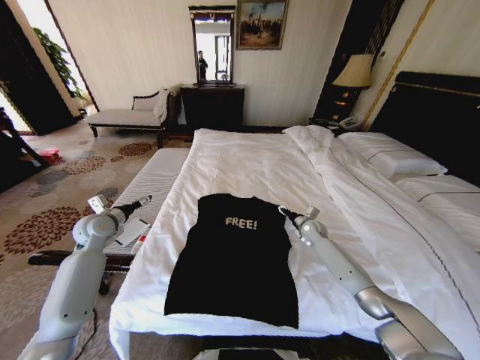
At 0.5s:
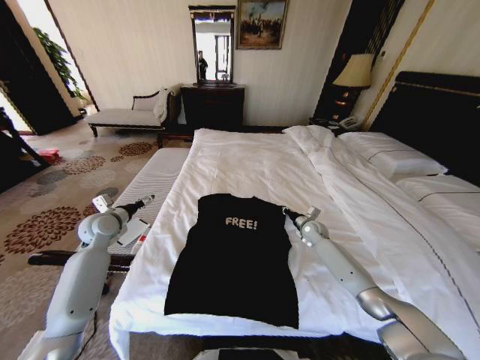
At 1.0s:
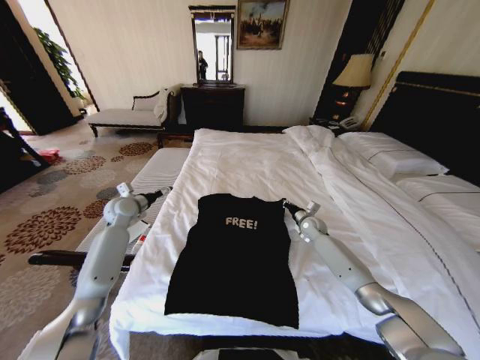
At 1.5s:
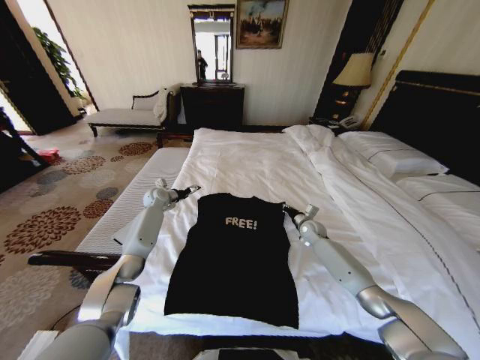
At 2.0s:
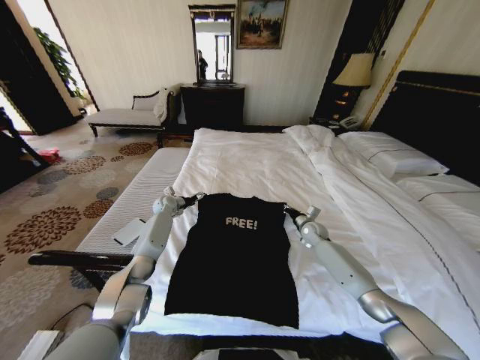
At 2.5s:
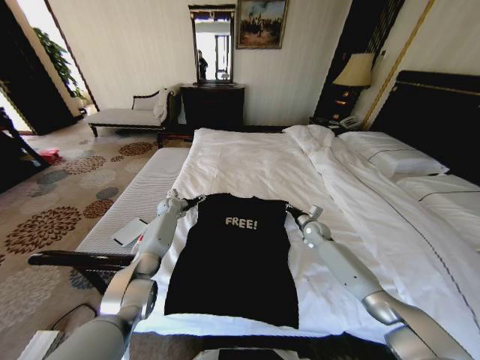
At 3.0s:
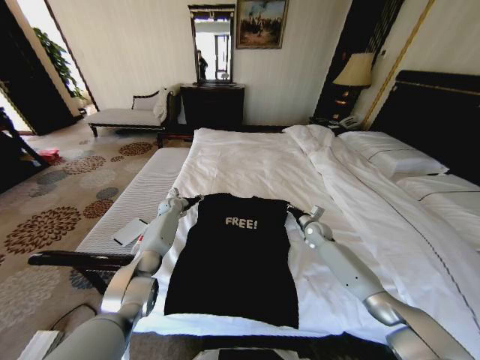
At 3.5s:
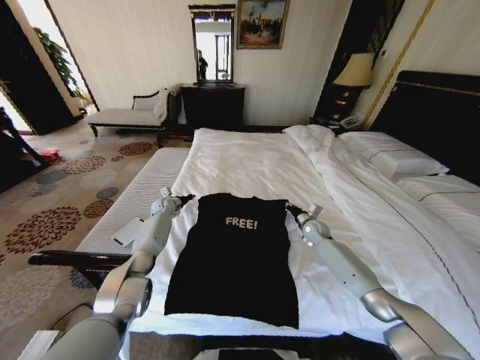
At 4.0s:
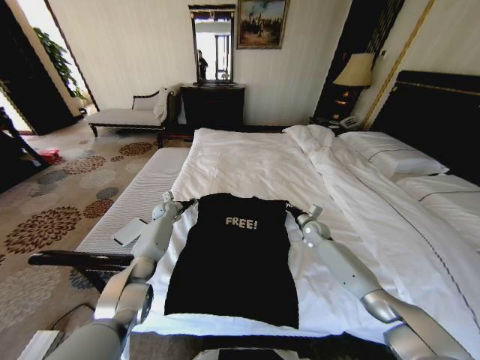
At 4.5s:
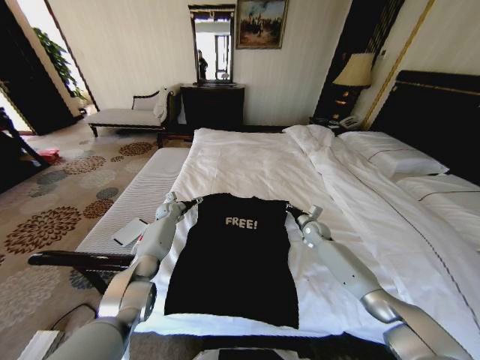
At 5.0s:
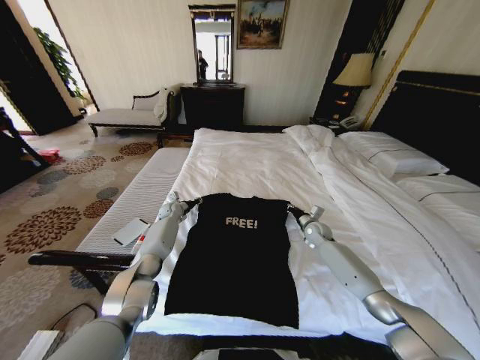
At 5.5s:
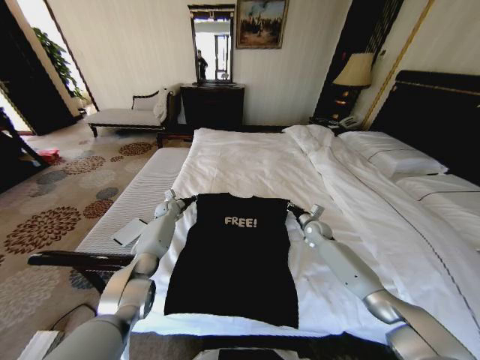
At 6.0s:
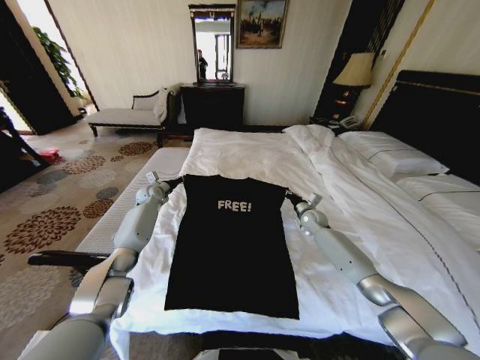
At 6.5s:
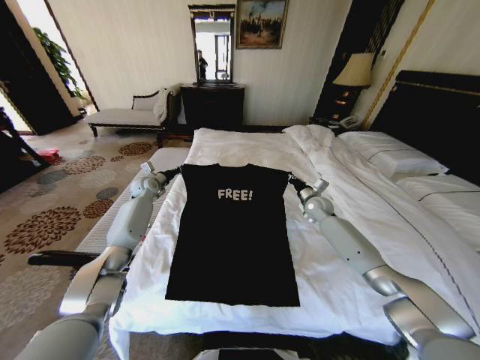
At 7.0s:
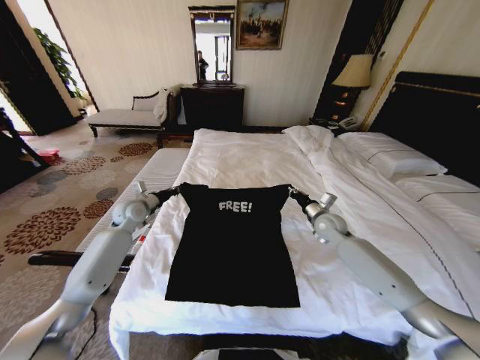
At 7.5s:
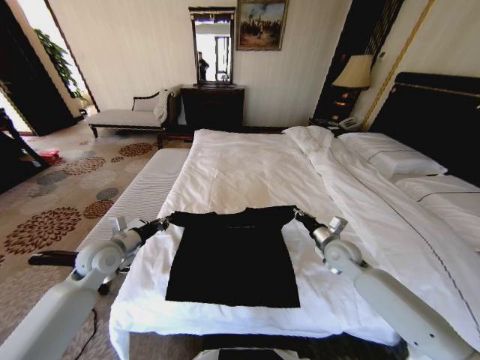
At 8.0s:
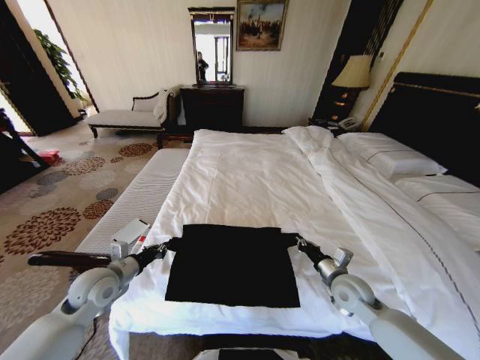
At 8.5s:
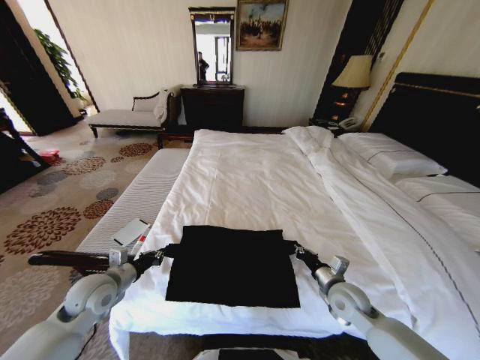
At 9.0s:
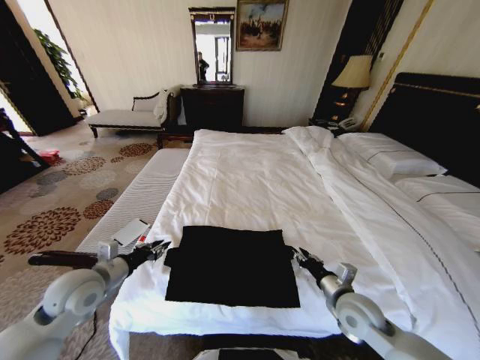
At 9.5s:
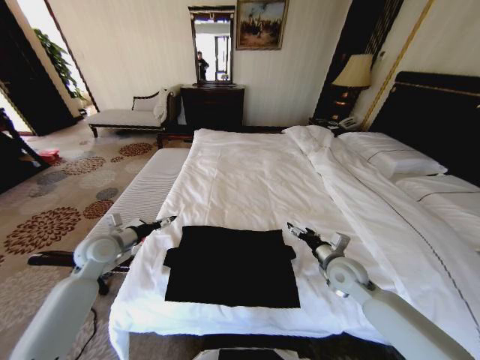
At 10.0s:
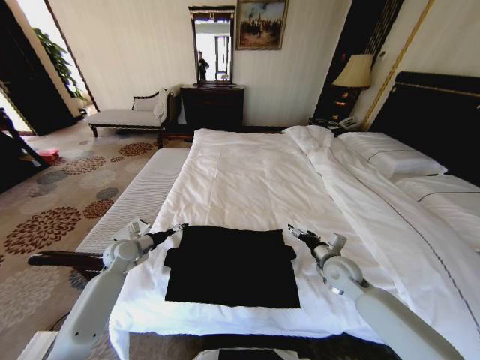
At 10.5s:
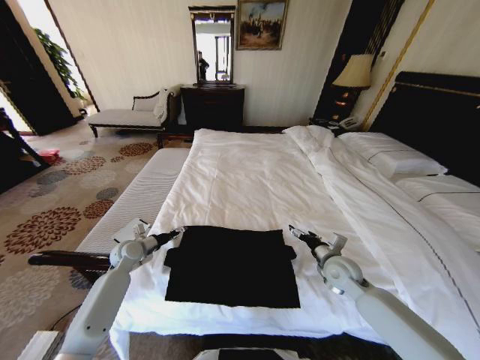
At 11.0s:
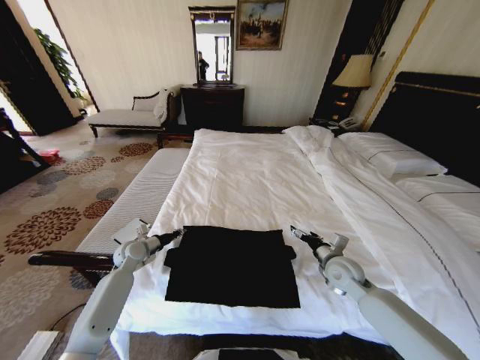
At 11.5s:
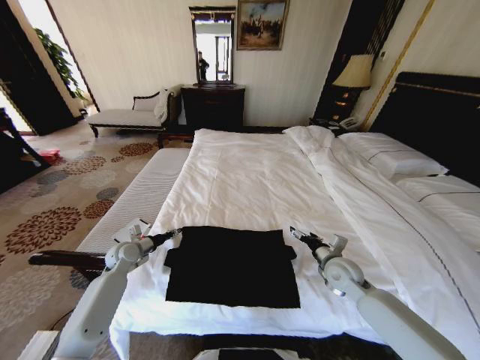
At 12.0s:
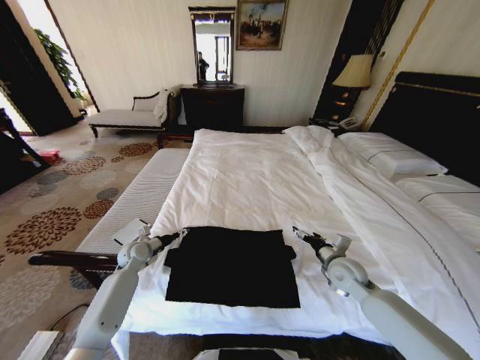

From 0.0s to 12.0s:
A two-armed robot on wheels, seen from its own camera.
Task of the whole recording: Fold the clothes on the bed.
From 0.0s to 2.0s: The left gripper is displaced forward, to the right and downward by about 25 cm. Meanwhile the right gripper closes its fingers.
From 2.0s to 4.0s: The left gripper closes up.
From 4.0s to 6.0s: The left gripper is displaced upward by approximately 10 cm, and opens, then closes again.
From 6.0s to 8.0s: Both grippers move backward, about 30 cm.
From 8.0s to 10.0s: The right gripper moves forward, roughly 5 cm, and opens its fingers. Meanwhile the left gripper goes roughly 15 cm forward and downward, and opens its fingers.
From 10.0s to 12.0s: The left gripper ends up some 5 cm from where it was, and closes and opens again.

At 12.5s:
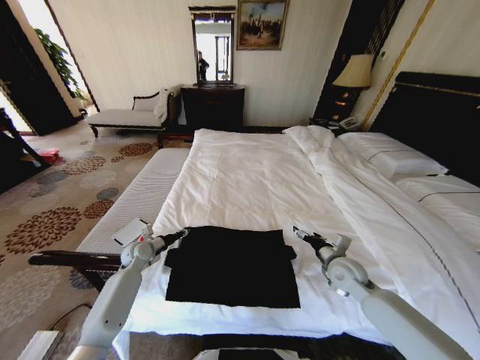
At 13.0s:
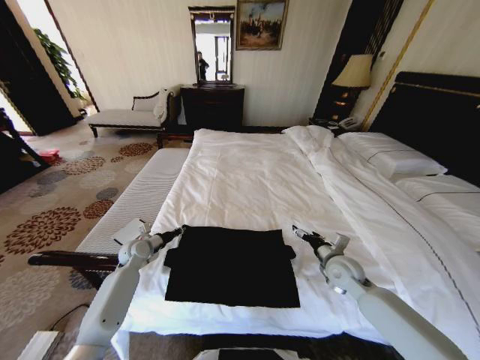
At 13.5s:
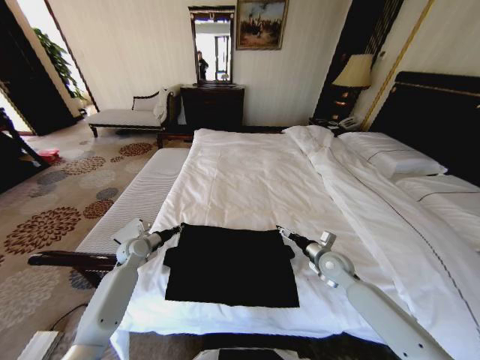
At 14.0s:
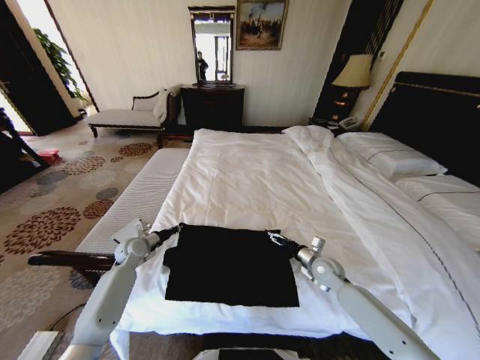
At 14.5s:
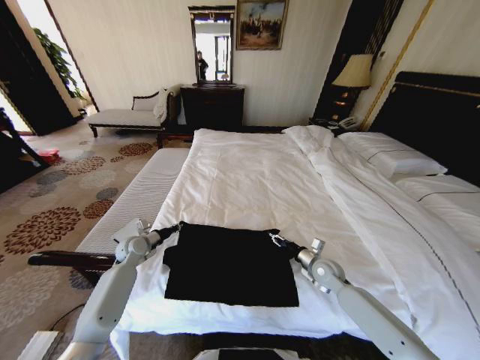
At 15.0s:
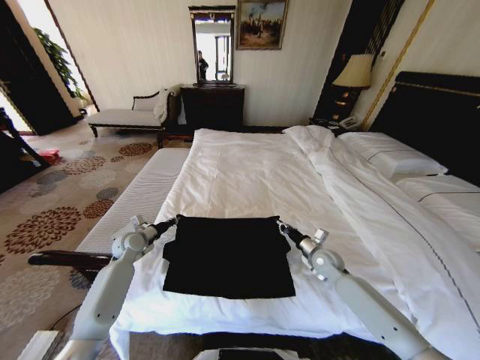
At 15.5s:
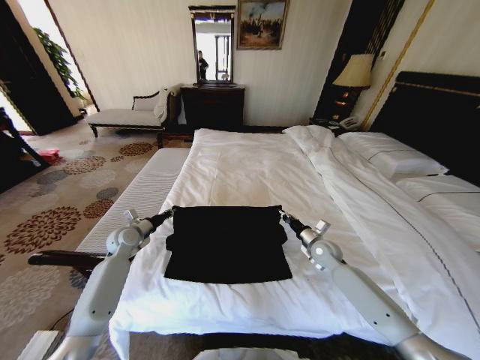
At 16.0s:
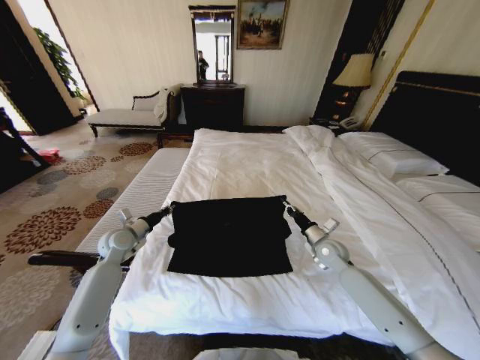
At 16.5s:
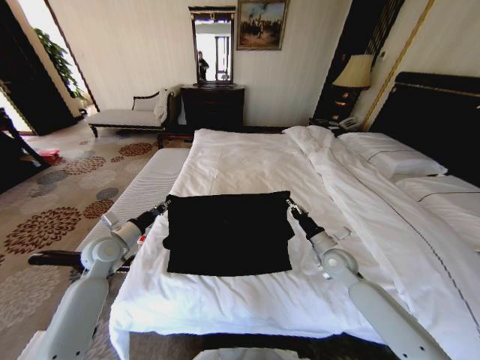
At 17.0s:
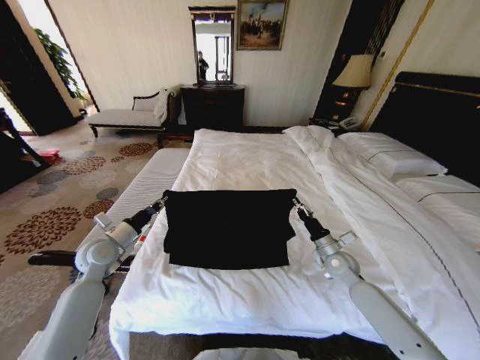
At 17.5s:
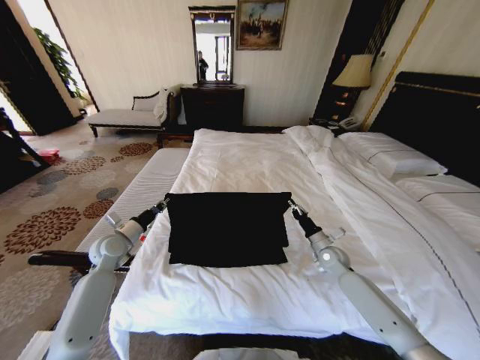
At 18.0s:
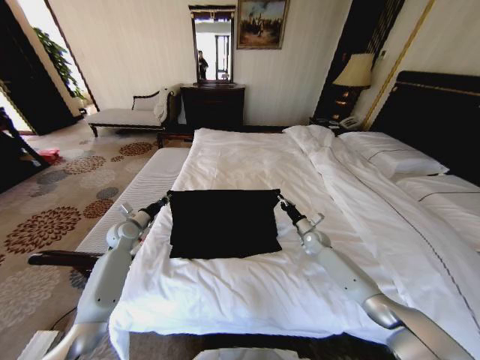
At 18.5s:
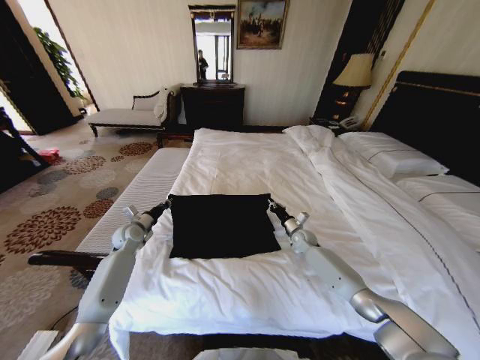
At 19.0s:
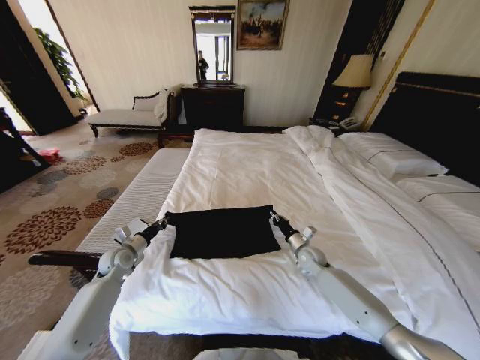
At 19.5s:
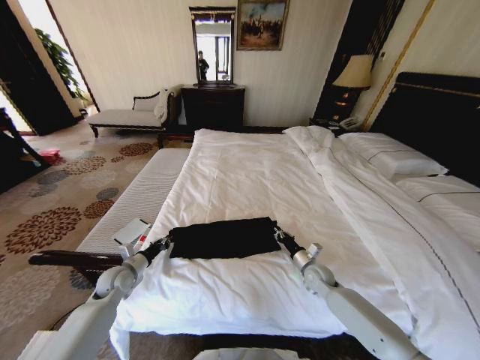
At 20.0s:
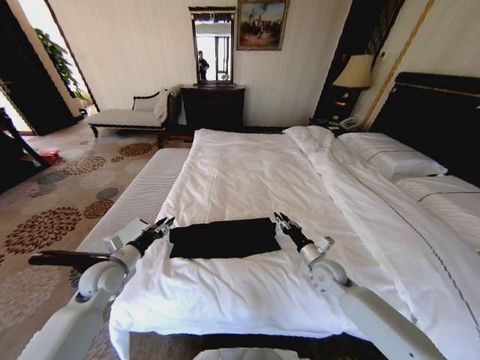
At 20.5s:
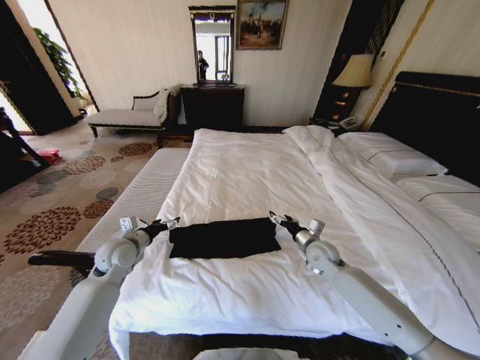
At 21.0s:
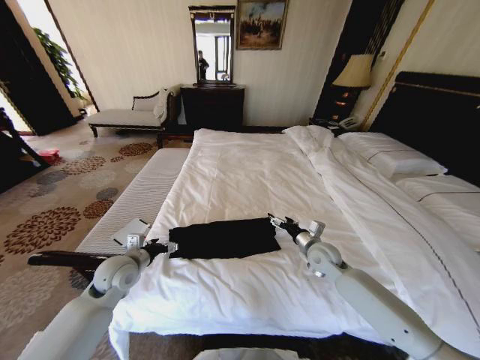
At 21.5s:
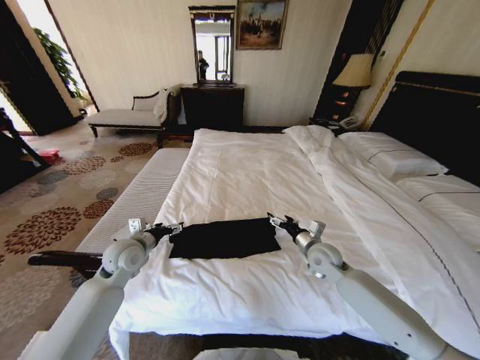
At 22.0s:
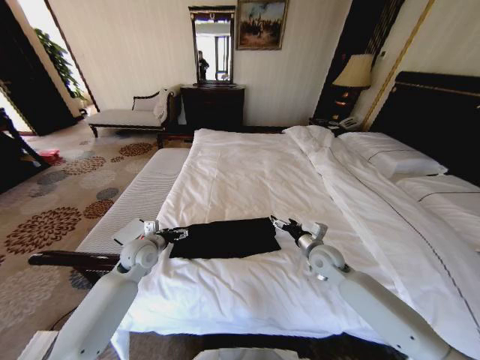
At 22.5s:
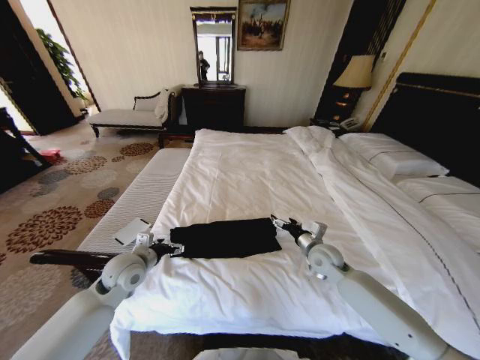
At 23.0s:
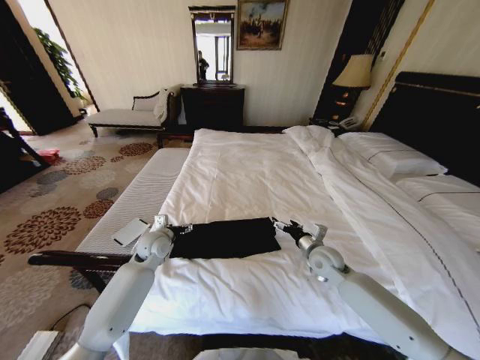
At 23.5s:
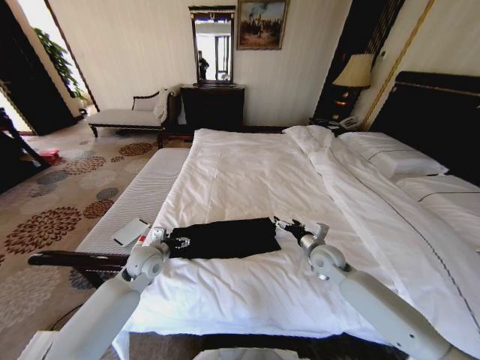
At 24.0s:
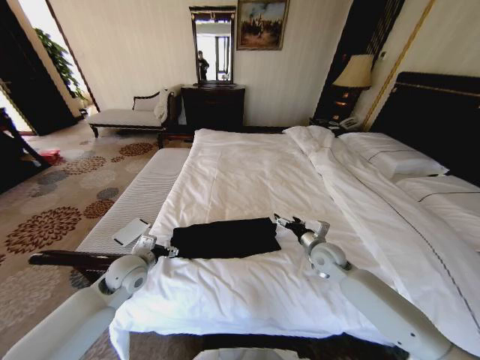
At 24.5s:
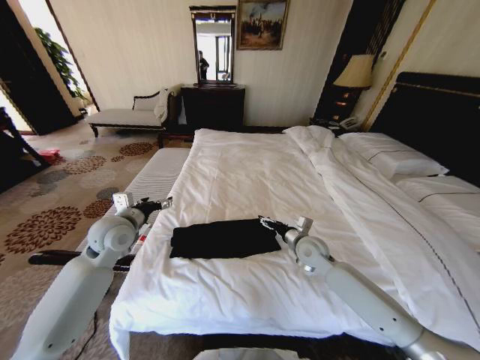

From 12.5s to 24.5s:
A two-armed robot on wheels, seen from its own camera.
Task of the whole recording: Fold the clothes on the bed.
From 12.5s to 14.5s: The right gripper heads downward, covering about 5 cm, and closes its fingers, while the left gripper closes.
From 14.5s to 16.5s: The right gripper moves upward, approximately 5 cm, and closes its fingers. The left gripper goes roughly 10 cm upward and backward.
From 16.5s to 18.5s: Both grippers move forward and downward, some 15 cm.
From 18.5s to 20.5s: Both grippers move backward and upward, about 15 cm. The right gripper opens up, while the left gripper opens its fingers.
From 20.5s to 22.5s: The left gripper moves forward and backward over some 5 cm, changing direction 2 times.
From 22.5s to 24.5s: The left gripper goes roughly 10 cm upward and forward.

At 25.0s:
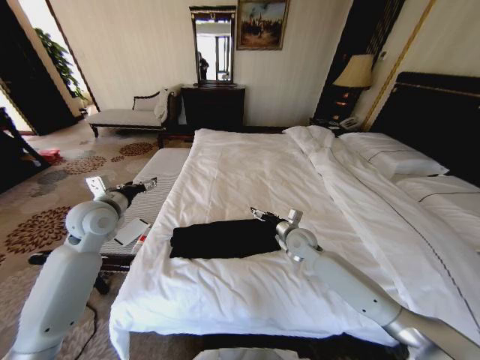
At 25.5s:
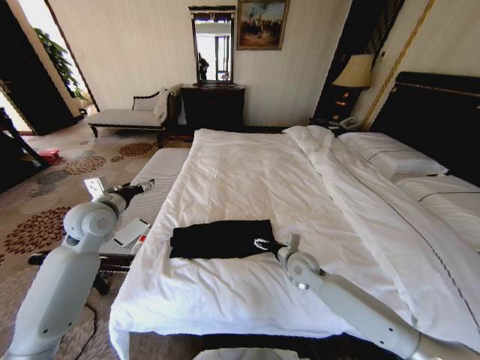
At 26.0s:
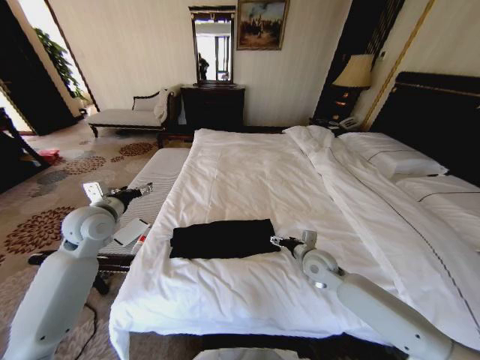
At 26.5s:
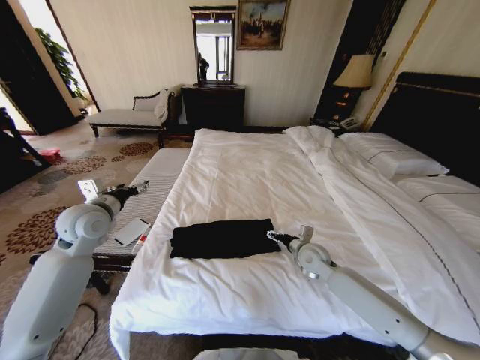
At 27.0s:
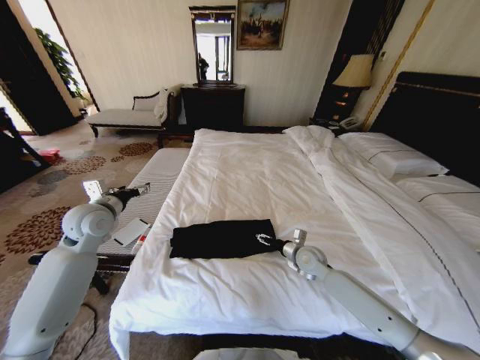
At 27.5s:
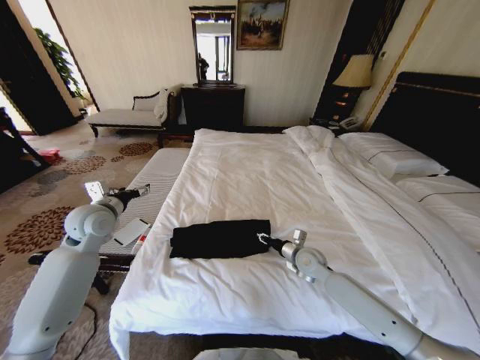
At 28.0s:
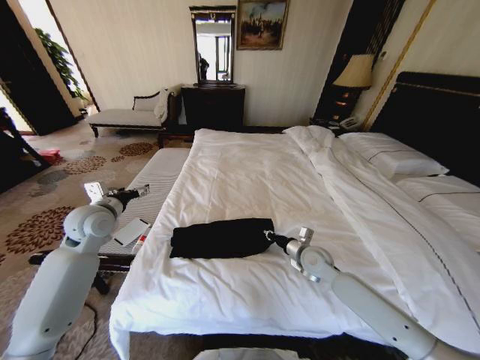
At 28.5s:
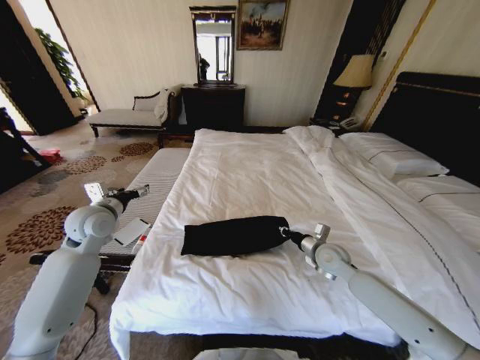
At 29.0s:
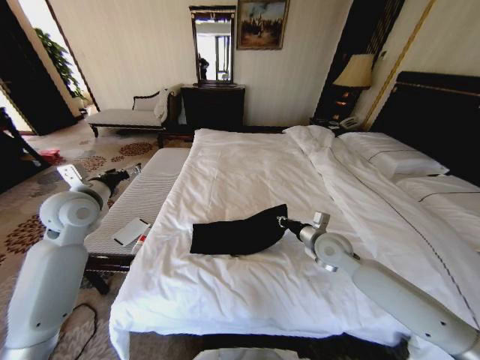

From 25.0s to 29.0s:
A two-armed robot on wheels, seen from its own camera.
Task of the whole recording: Fold the clothes on the bed.
From 25.0s to 27.0s: The right gripper heads downward, covering some 5 cm.
From 27.0s to 29.0s: The right gripper heads upward, covering roughly 10 cm, and closes its fingers, while the left gripper heads upward, covering approximately 5 cm.
